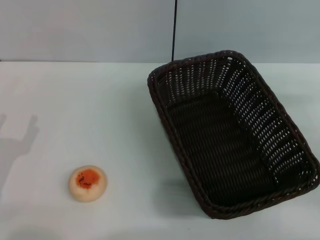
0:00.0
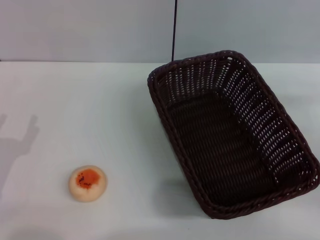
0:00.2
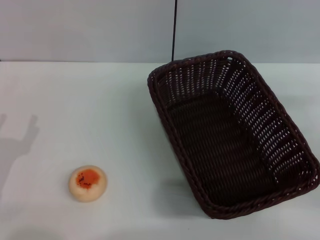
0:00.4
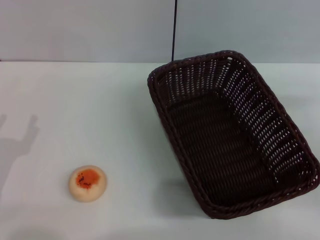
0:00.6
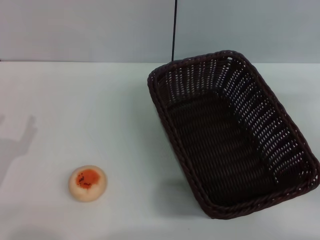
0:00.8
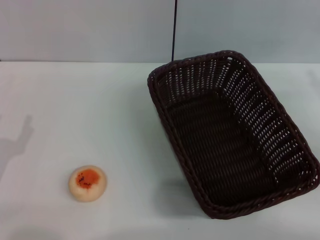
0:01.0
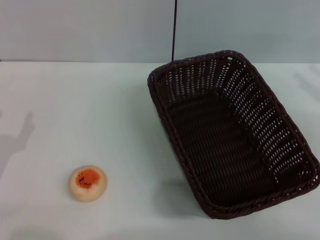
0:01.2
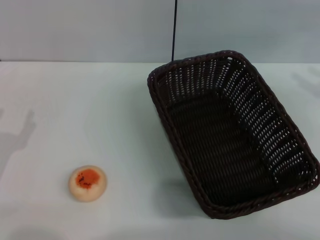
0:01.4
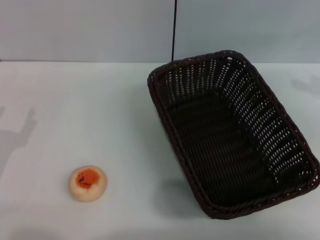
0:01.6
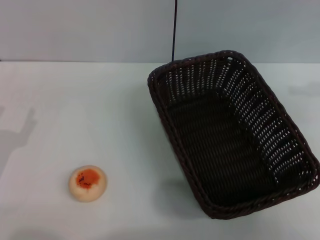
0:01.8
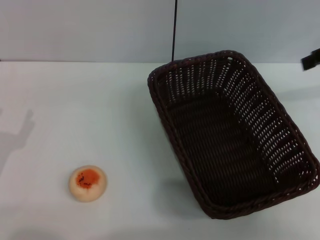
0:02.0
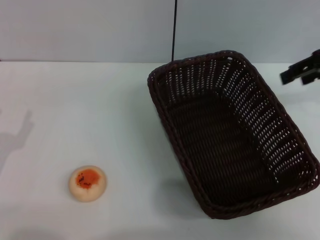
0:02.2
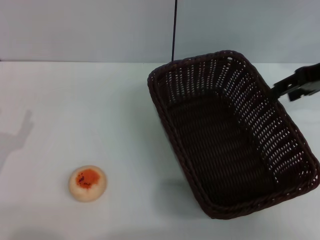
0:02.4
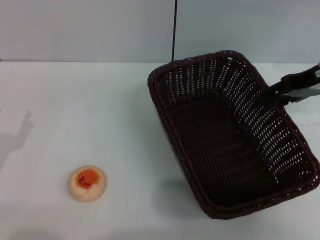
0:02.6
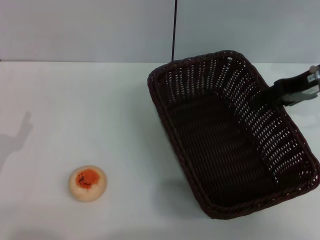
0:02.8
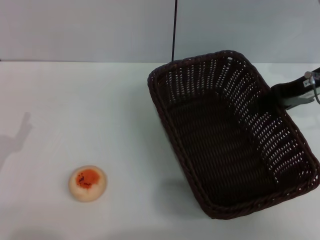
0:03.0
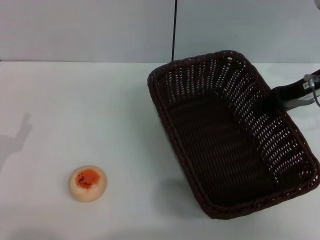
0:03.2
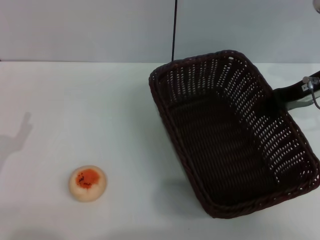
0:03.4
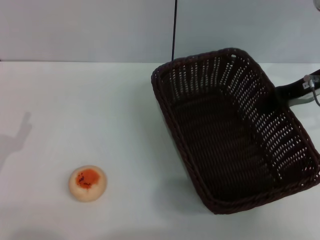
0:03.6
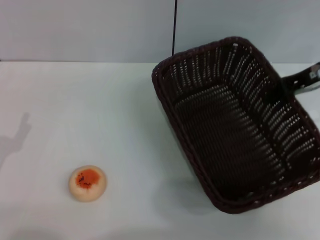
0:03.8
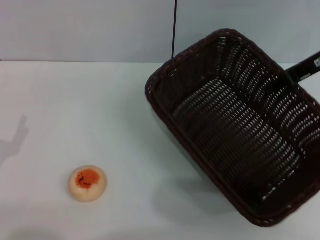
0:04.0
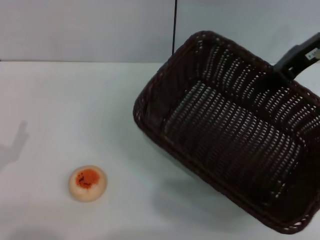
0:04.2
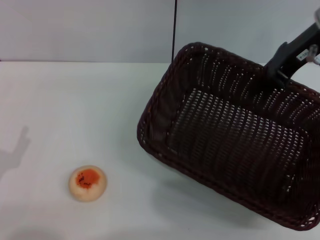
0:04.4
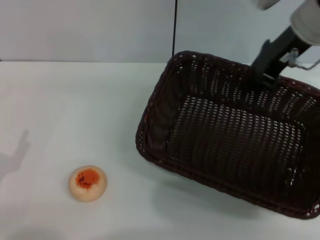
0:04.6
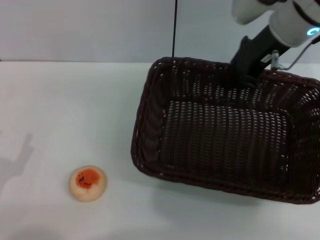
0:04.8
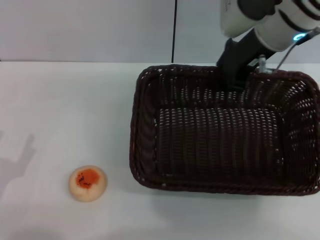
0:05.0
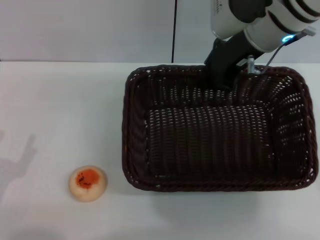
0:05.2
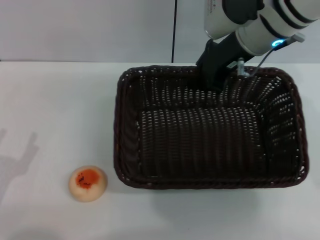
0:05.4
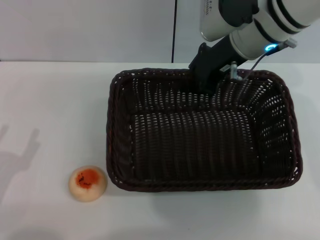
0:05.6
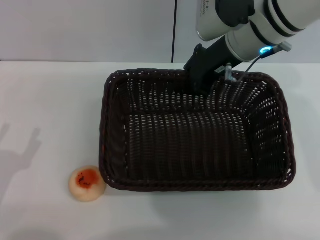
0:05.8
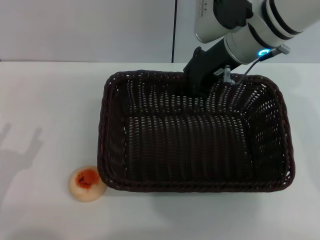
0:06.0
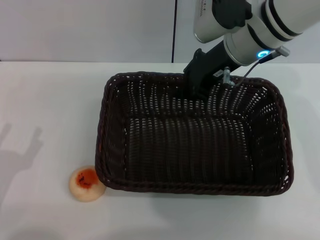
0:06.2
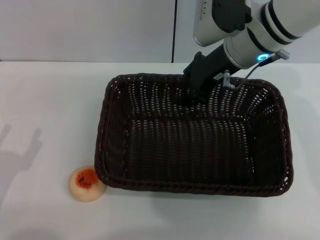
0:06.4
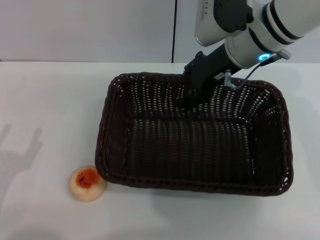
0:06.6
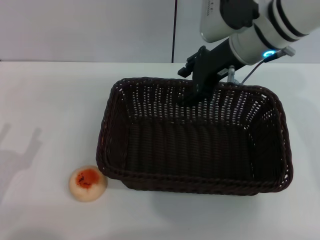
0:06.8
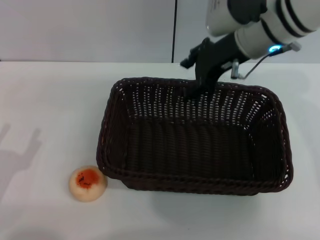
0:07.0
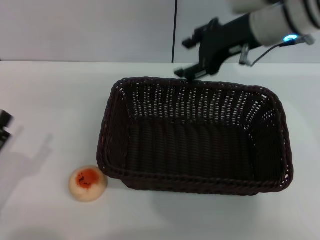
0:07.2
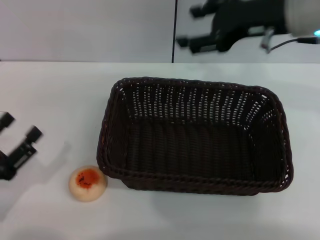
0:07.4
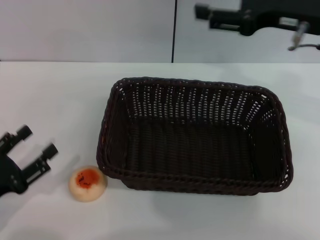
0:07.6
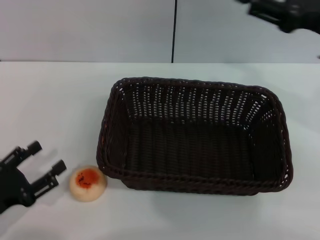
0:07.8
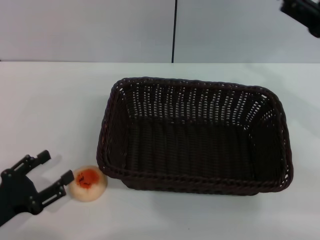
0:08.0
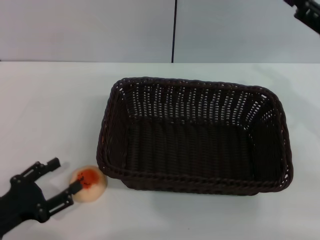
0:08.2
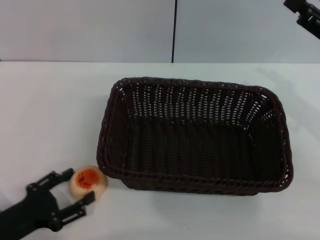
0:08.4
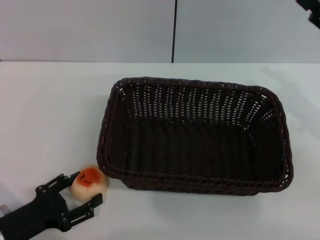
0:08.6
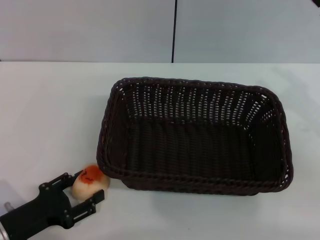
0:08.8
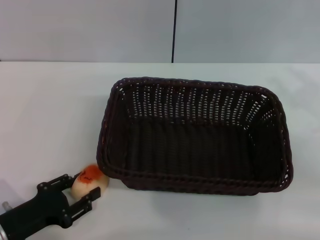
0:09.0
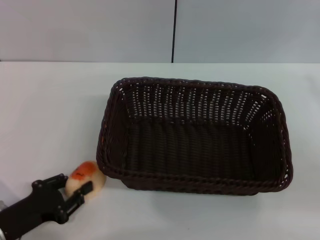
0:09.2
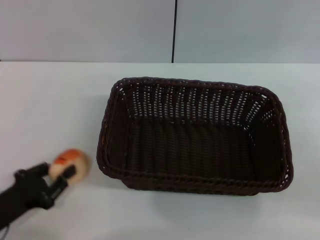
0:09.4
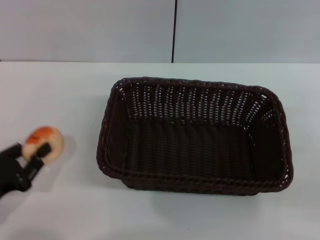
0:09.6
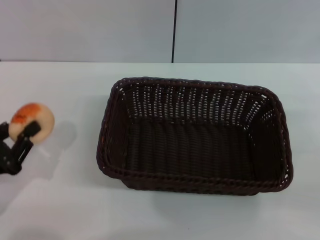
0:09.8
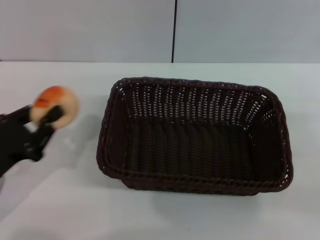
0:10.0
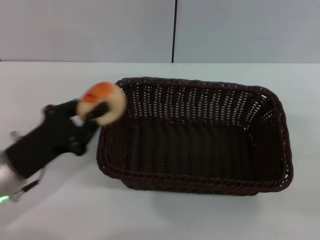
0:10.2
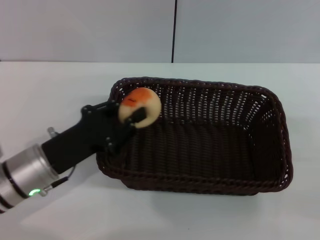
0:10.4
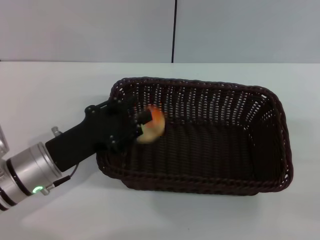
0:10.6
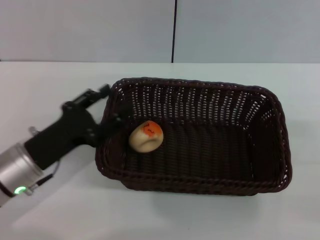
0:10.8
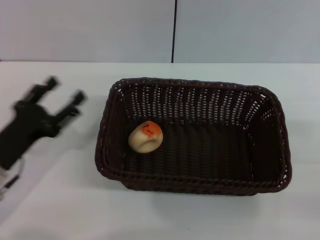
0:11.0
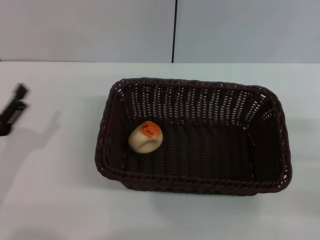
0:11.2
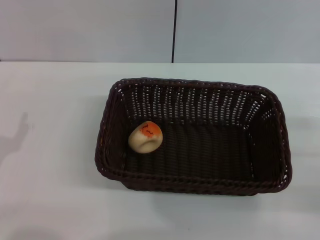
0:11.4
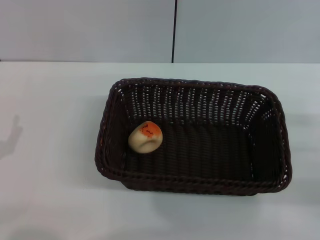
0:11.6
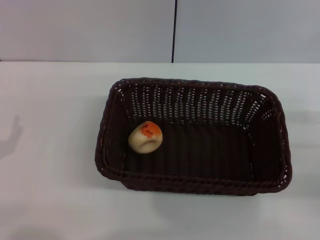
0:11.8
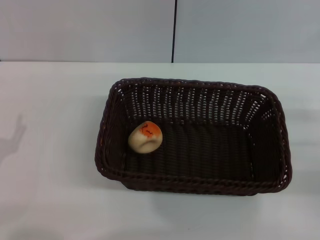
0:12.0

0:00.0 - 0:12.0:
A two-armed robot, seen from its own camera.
Step, 0:00.0 - 0:07.0: Move the basket to the center of view with the right gripper.
Step, 0:07.2 - 0:09.4: Pick up the egg yolk pastry with the left gripper.
Step, 0:09.8 - 0:10.6: Place the egg yolk pastry into the basket with the left gripper.
0:00.0 - 0:01.6: The right gripper shifts roughly 20 cm upward and forward.
0:01.6 - 0:03.0: The right gripper is displaced to the left and downward by roughly 15 cm.
0:03.0 - 0:04.4: The right gripper shifts some 10 cm upward and to the left, and closes.
0:04.4 - 0:06.0: The right gripper heads to the left, covering about 10 cm.
0:06.0 - 0:07.6: The right gripper heads to the right and backward, covering approximately 15 cm, and opens.
0:07.6 - 0:09.0: The right gripper is displaced to the right, downward and backward by approximately 15 cm. The left gripper moves roughly 5 cm.
0:09.0 - 0:10.4: The right gripper moves backward and downward, some 5 cm, while the left gripper shifts approximately 10 cm forward, to the right and upward, and closes up.
0:10.4 - 0:12.0: The left gripper moves to the left and backward, roughly 10 cm, and opens its fingers.

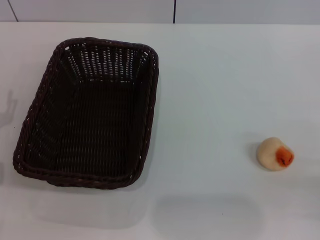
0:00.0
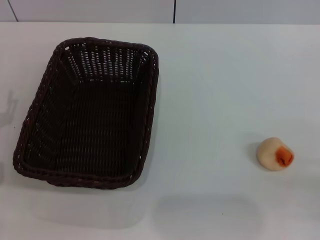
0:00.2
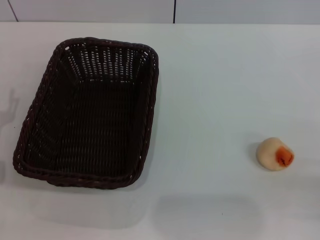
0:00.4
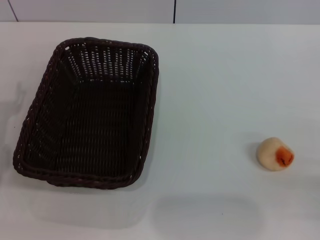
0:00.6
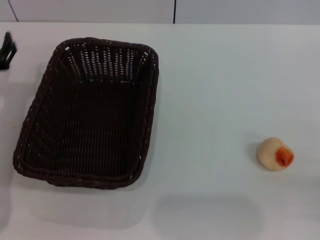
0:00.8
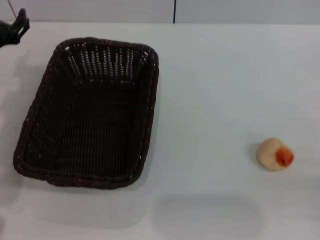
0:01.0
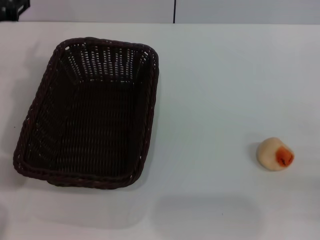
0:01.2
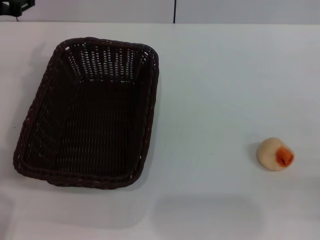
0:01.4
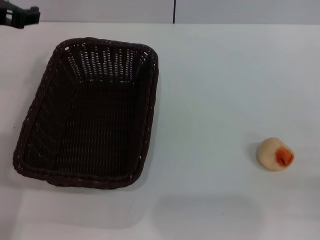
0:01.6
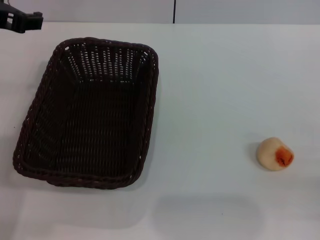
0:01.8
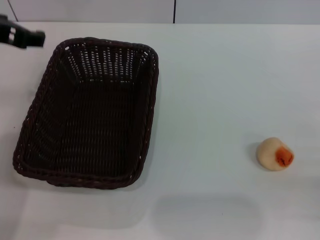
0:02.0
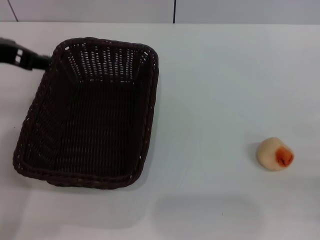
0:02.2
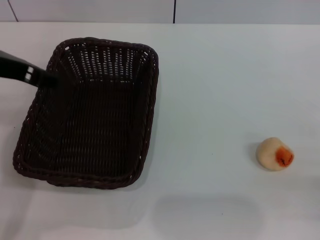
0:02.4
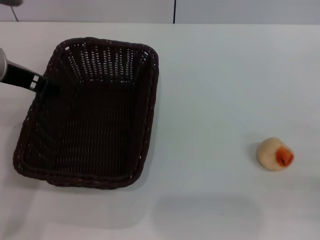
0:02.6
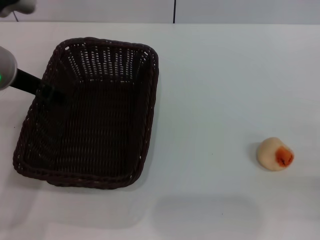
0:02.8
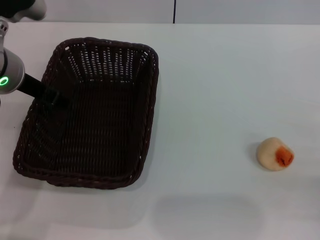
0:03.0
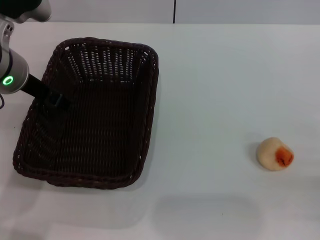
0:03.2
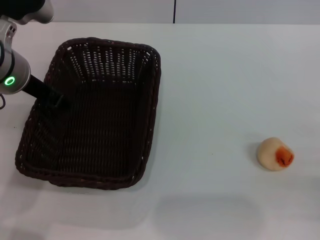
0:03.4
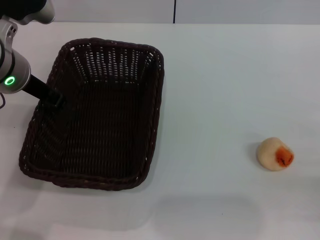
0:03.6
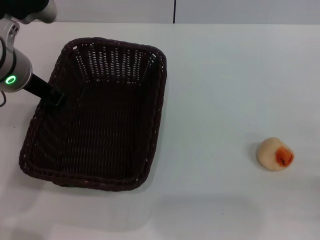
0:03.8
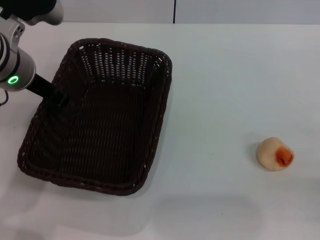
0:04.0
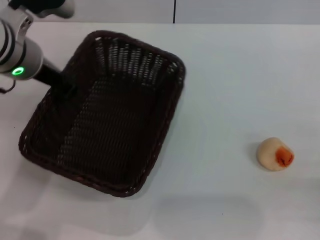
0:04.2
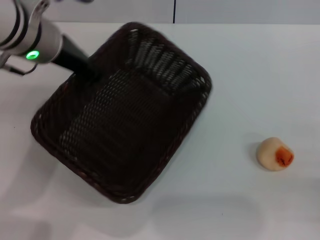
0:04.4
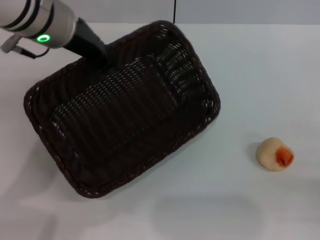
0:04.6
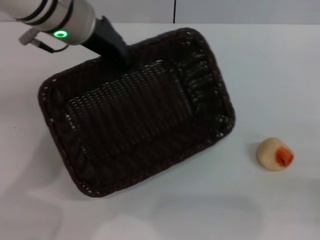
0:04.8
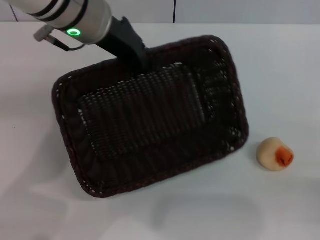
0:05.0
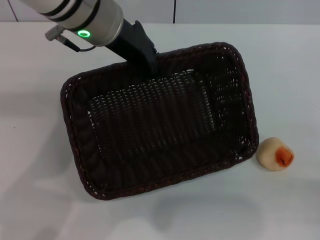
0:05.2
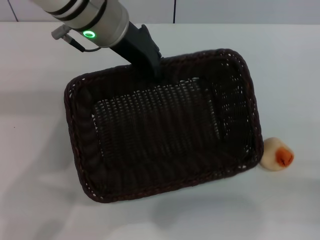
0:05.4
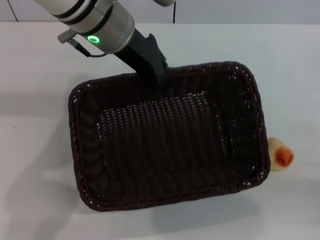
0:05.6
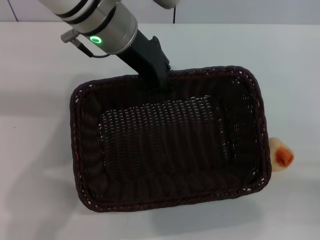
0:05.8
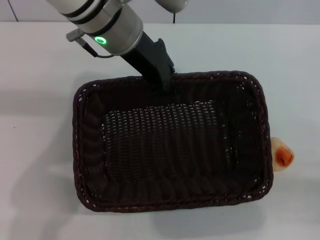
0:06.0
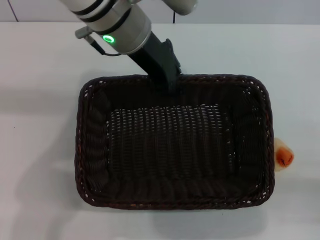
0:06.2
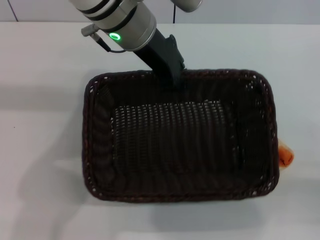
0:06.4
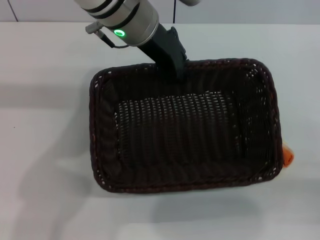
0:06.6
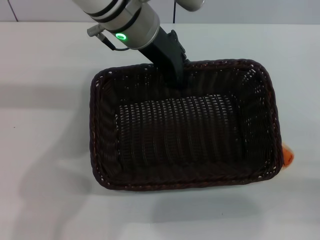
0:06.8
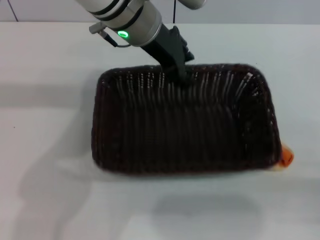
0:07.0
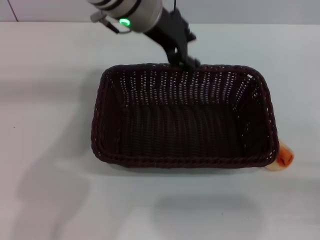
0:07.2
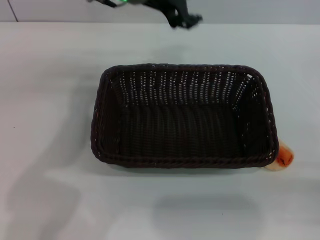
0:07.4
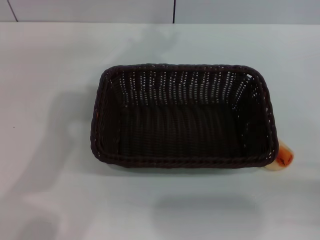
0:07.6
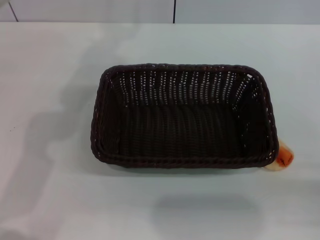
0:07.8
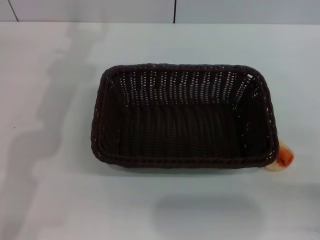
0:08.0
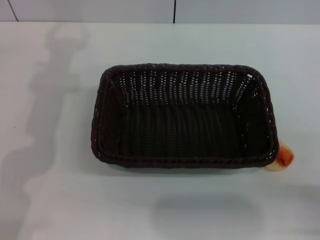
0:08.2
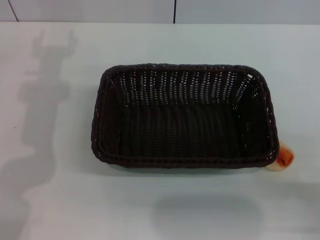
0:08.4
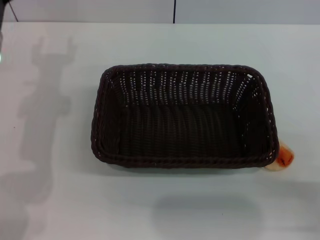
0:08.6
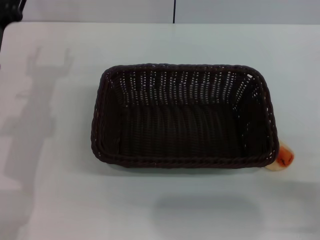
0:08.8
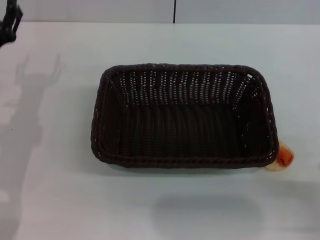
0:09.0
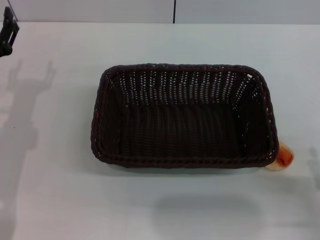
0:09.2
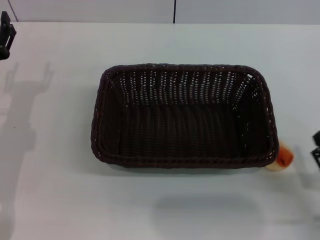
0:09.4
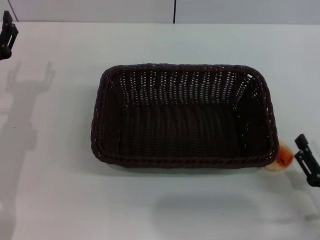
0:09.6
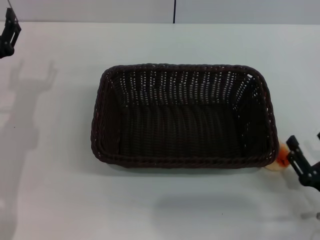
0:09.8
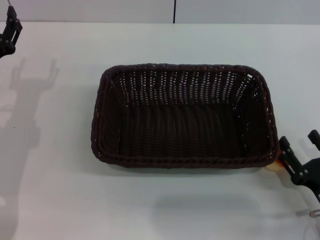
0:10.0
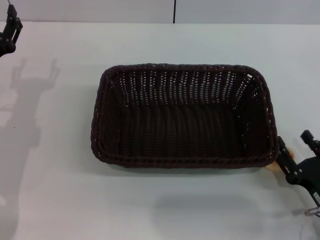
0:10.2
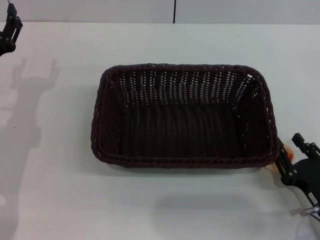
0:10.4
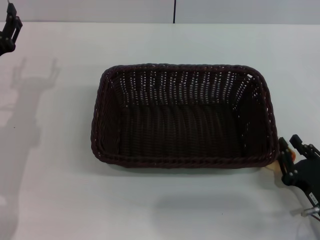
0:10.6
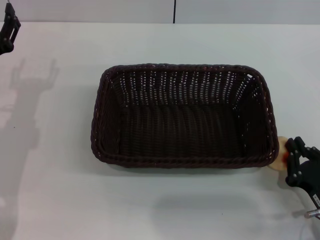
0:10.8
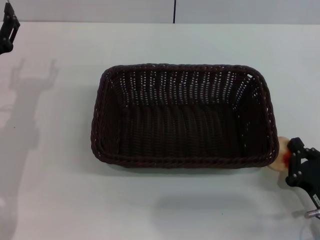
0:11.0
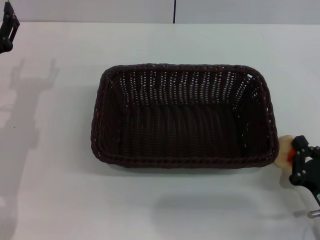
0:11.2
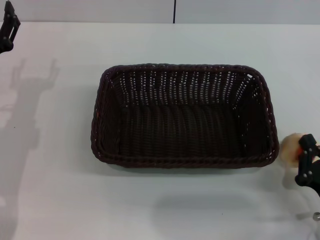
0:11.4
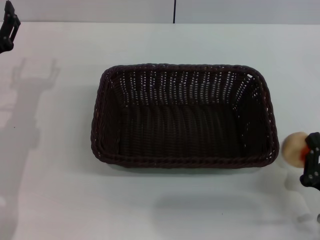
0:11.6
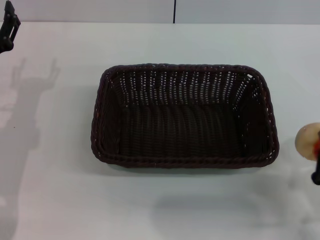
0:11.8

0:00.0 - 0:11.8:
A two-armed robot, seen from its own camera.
Step, 0:00.0 - 0:07.2: Move the basket to the center of view with the left gripper.
Step, 0:07.4 - 0:11.6: Pick up the egg yolk pastry with the right gripper.
0:00.0 - 0:01.4: The left gripper goes about 20 cm upward and forward.
0:03.0 - 0:04.4: The left gripper closes.
0:04.4 - 0:06.0: The left gripper goes some 10 cm to the right.
0:06.0 - 0:07.4: The left gripper opens up.
0:07.4 - 0:08.8: The left gripper is displaced to the left, downward and backward by about 25 cm, and opens its fingers.
0:08.8 - 0:10.4: The right gripper goes about 5 cm forward.
0:10.4 - 0:11.8: The right gripper closes its fingers.
